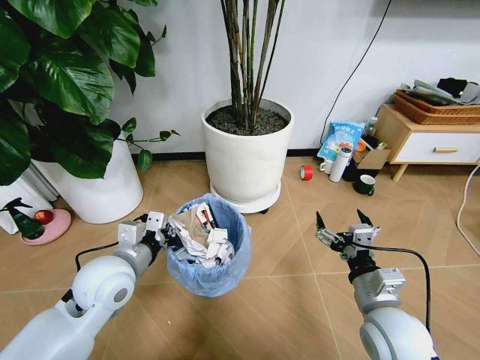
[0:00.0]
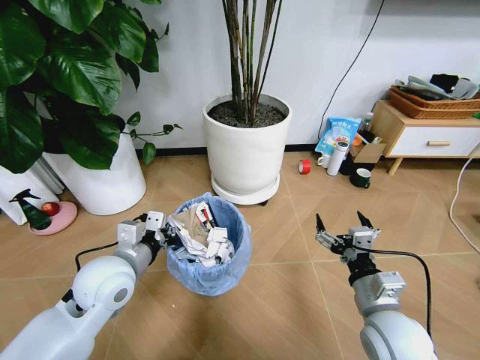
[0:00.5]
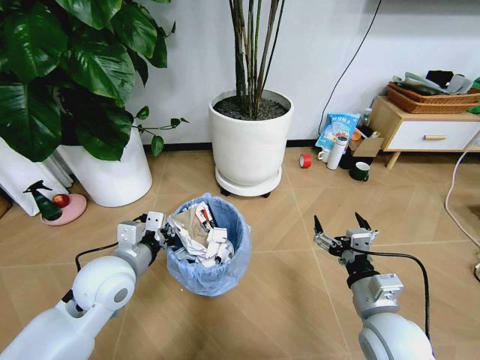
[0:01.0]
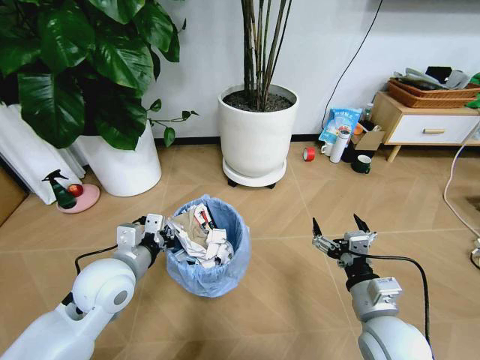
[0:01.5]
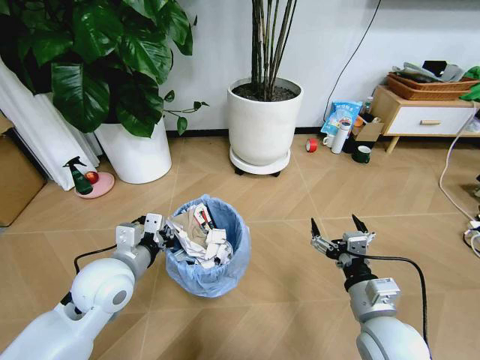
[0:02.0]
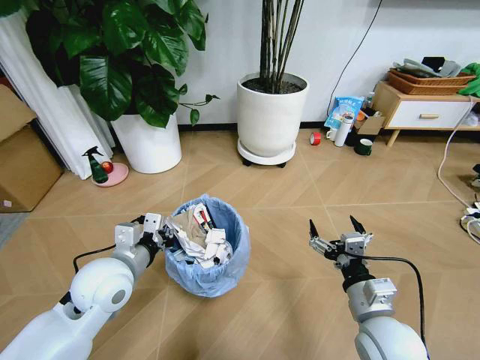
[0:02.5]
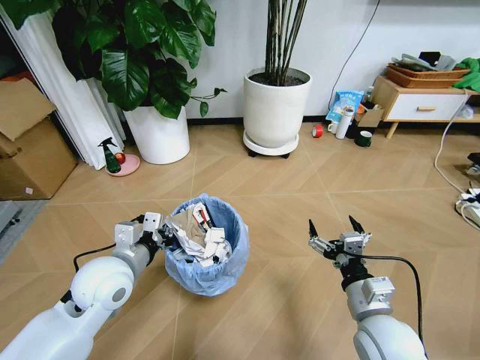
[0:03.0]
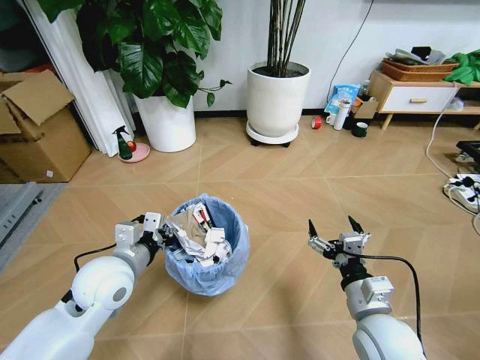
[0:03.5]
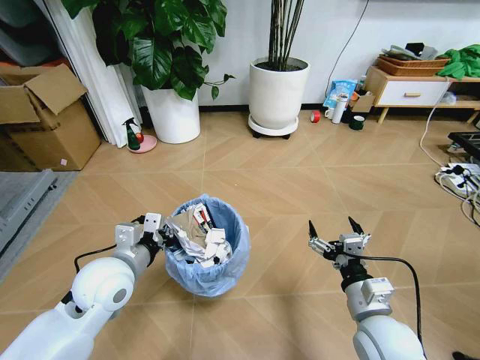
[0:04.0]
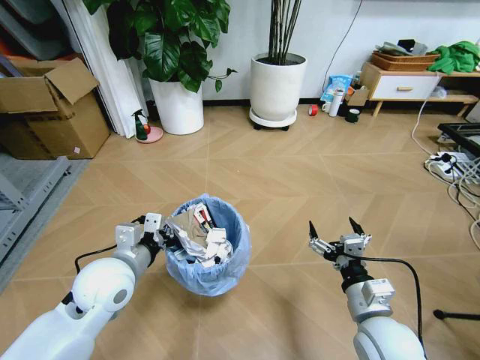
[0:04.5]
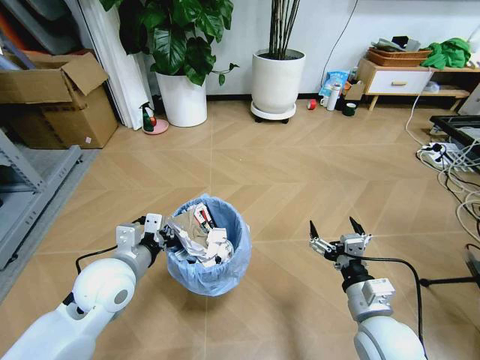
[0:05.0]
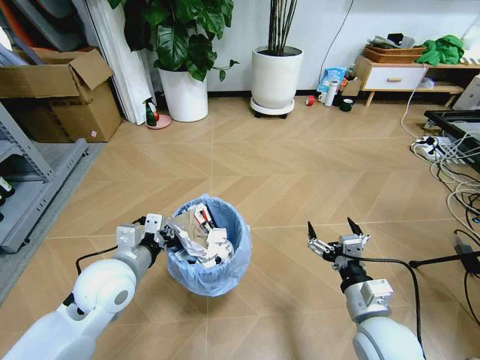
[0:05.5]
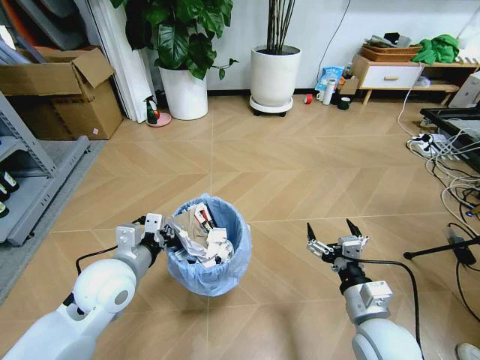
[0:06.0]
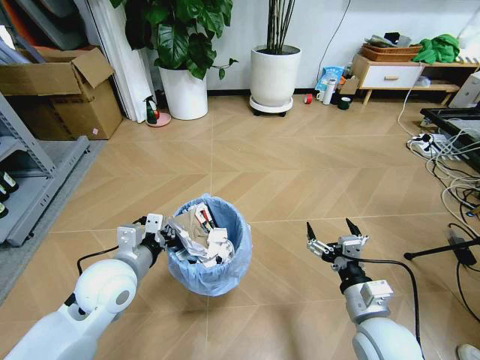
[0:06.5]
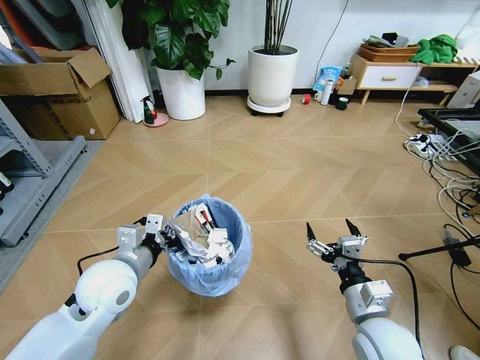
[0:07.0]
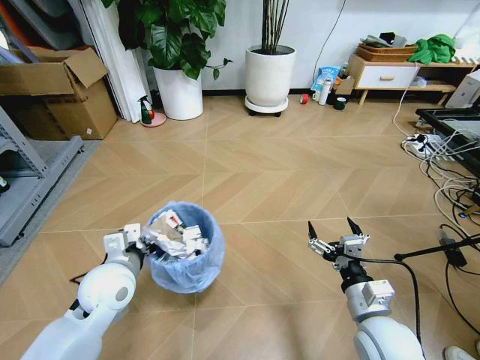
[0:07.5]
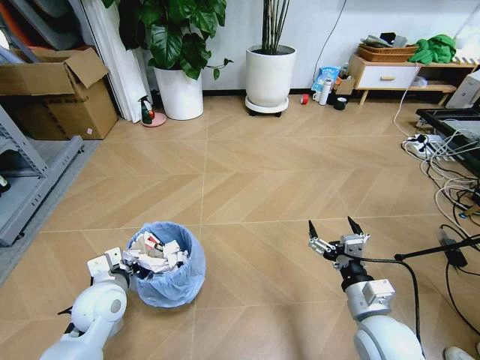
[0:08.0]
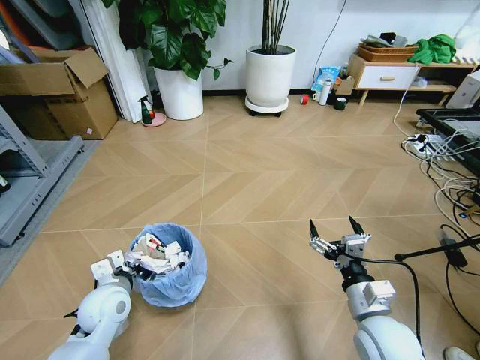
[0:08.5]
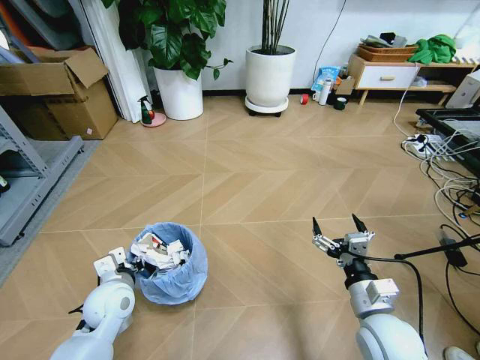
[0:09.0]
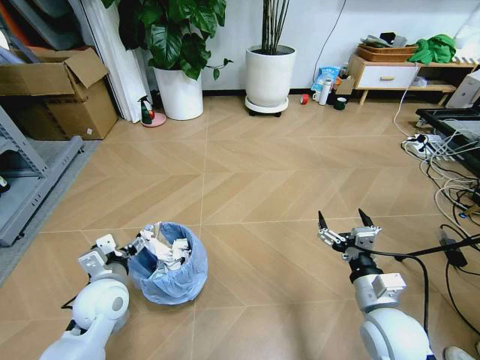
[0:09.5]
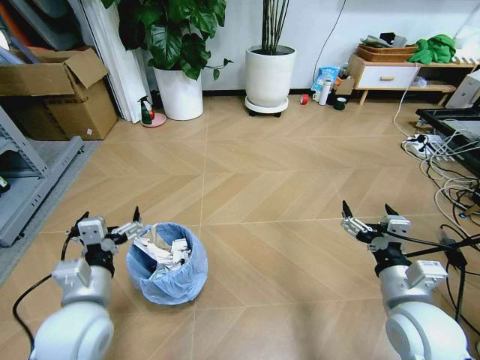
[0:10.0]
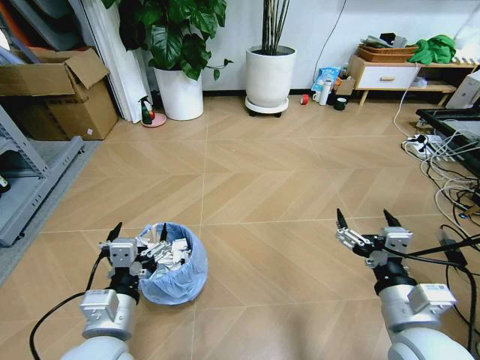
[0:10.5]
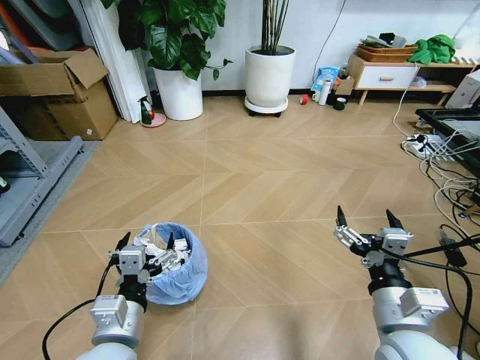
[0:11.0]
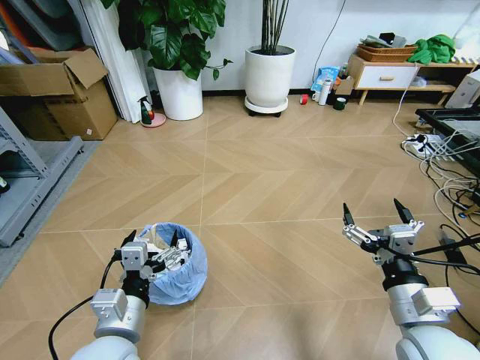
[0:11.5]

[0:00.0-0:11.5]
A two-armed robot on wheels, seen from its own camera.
Task of the whole recording: Pick up the trash bin and place the garbage on the floor into it.
0:07.5 to 0:09.5: The left gripper opens.
0:09.5 to 0:11.5: The right gripper moves upward, approximately 5 cm, while the left gripper moves backward, to the right and upward, roughly 15 cm.
